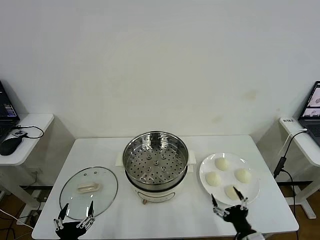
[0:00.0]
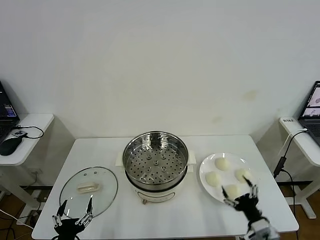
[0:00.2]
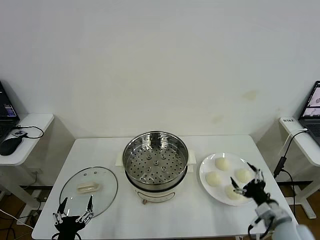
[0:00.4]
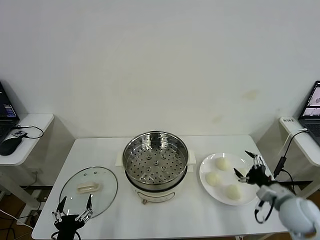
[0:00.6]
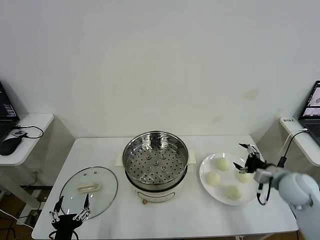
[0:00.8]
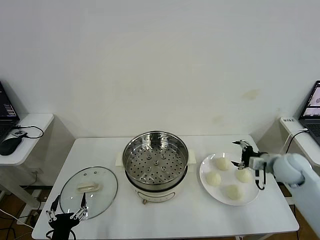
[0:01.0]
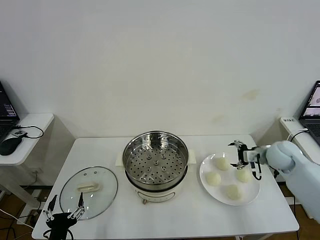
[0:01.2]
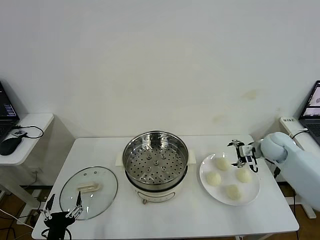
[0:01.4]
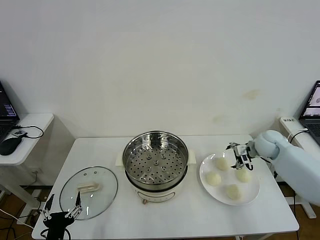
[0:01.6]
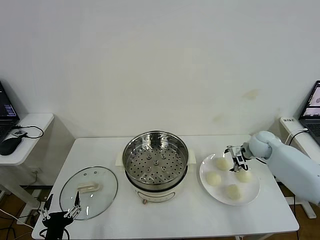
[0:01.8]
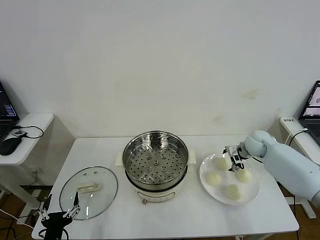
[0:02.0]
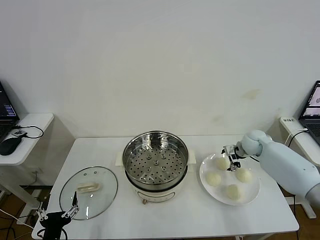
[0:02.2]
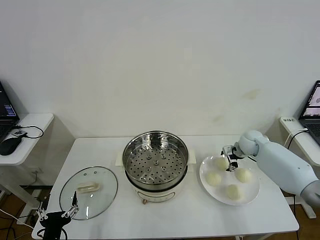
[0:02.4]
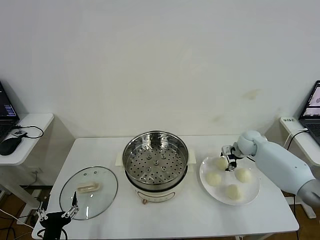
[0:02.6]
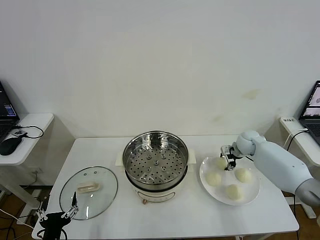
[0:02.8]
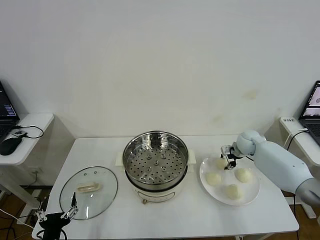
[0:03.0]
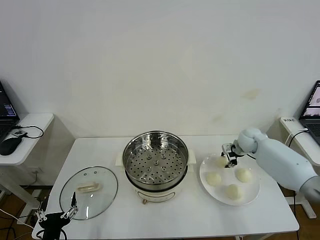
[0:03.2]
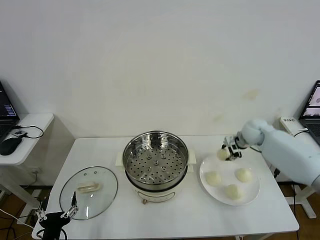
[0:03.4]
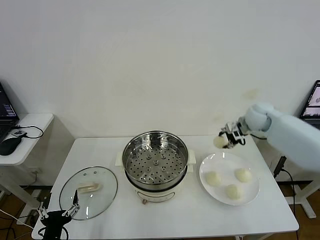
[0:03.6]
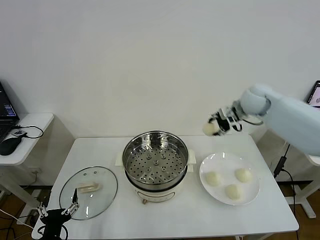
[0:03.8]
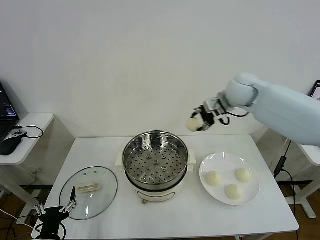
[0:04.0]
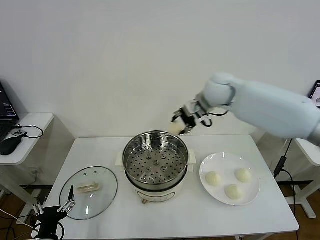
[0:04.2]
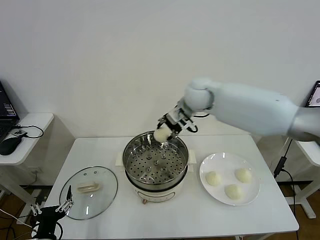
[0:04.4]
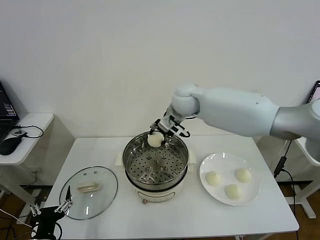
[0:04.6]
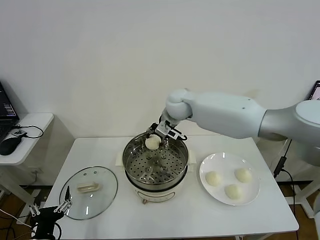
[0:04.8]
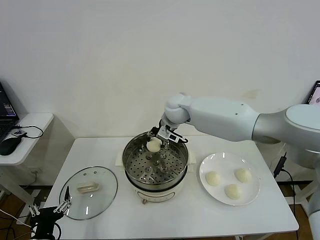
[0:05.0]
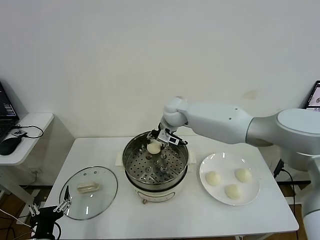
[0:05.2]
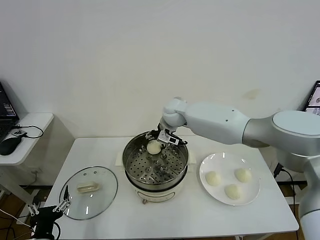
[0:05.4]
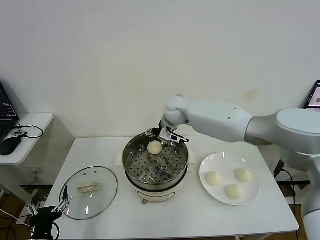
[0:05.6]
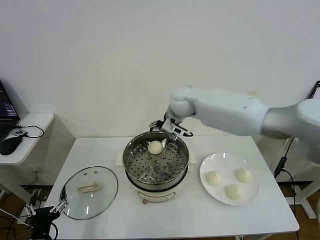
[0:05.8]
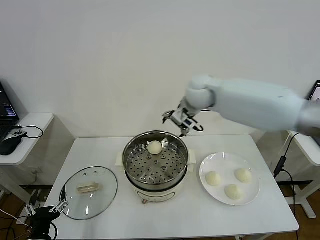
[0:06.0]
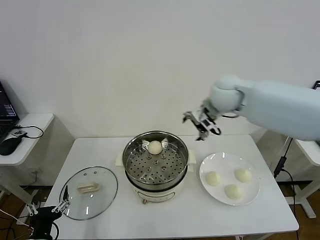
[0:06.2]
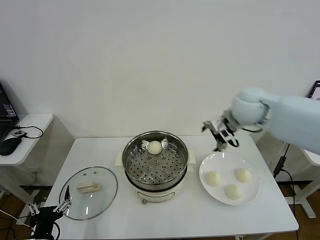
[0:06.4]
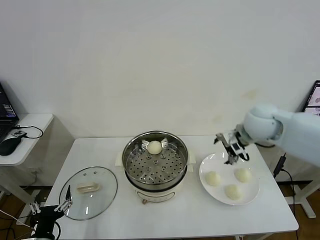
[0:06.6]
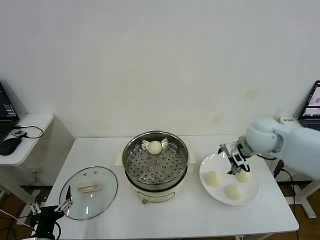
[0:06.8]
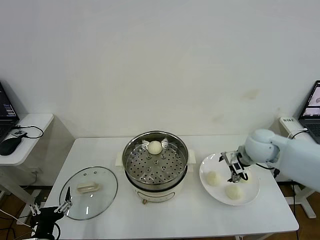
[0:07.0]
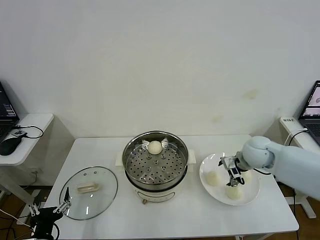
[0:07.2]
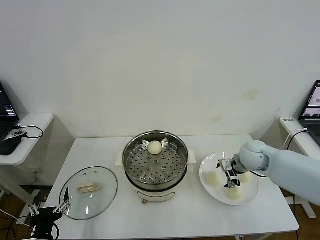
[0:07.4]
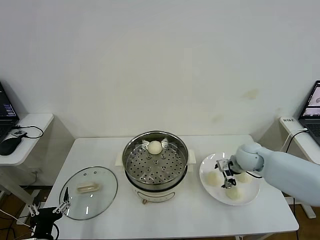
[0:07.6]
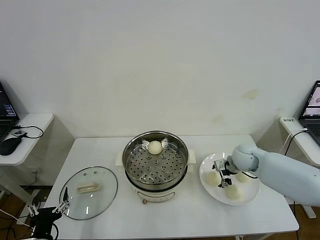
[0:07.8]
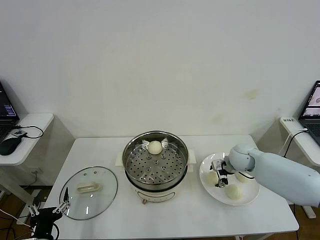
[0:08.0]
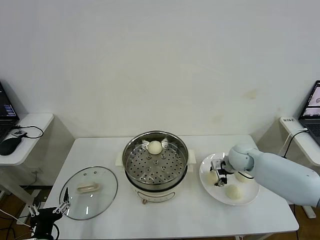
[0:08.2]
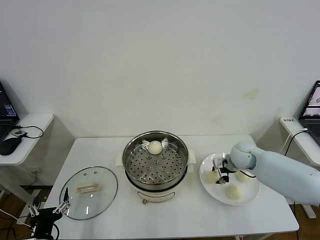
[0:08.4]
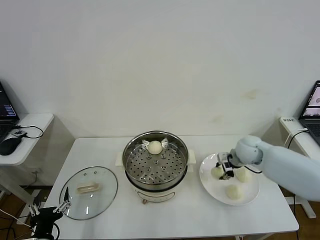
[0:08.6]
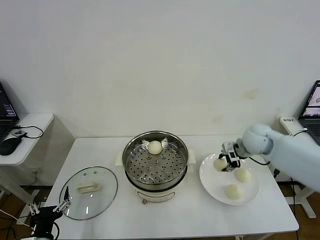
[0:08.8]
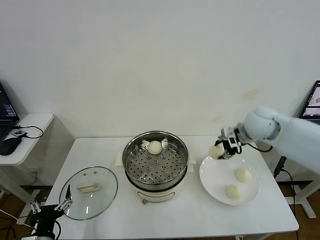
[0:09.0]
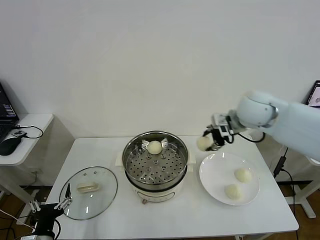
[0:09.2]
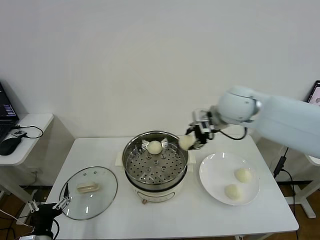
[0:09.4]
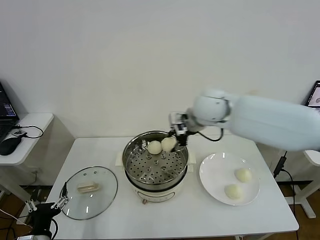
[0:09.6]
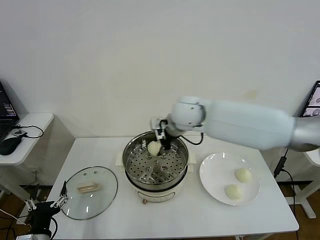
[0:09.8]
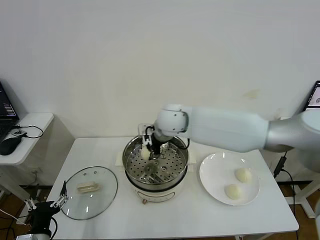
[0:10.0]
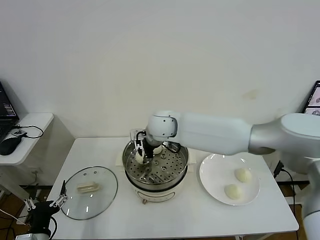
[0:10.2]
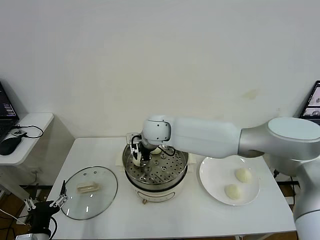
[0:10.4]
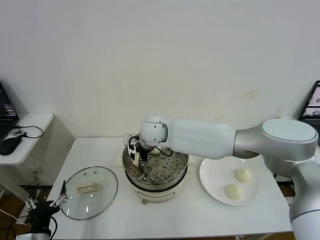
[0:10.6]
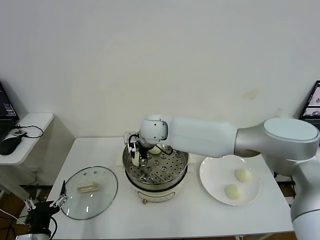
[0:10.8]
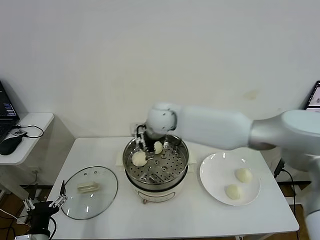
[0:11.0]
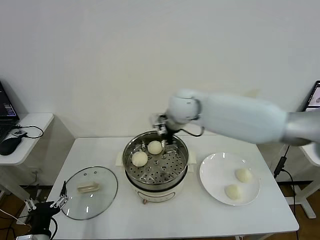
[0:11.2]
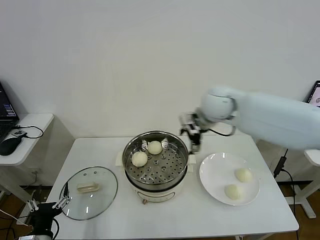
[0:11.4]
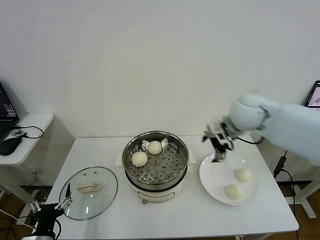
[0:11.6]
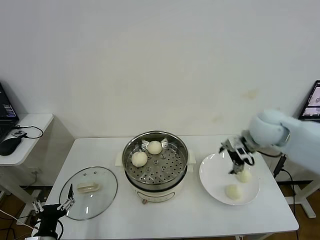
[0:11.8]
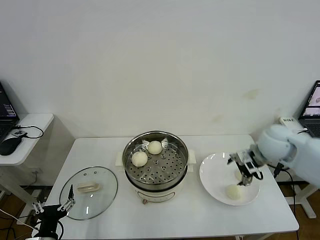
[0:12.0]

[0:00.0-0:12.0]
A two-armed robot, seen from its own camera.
Step, 0:00.0 to 0:02.8: Grasp the baozi in the plate with right gripper.
Step, 0:03.2 to 0:05.6: Place the baozi on the steamer with right gripper.
Step, 0:05.8 to 0:08.4: Grasp the baozi in the plate with right gripper.
Step, 0:08.6 to 0:10.6: Place the baozi on the steamer with right gripper.
0:01.6 to 0:03.0: The right gripper moves roughly 5 cm, and closes.
0:03.0 to 0:04.4: The right gripper travels to the left and upward by about 35 cm.
0:04.4 to 0:06.0: The right gripper heads to the right, covering roughly 5 cm, reaches approximately 10 cm downward, then returns, and opens.
0:06.0 to 0:07.6: The right gripper is displaced downward and to the right by roughly 25 cm.
0:07.6 to 0:09.0: The right gripper is displaced upward by approximately 20 cm, and closes up.
0:09.0 to 0:10.4: The right gripper shifts approximately 30 cm to the left.
0:10.4 to 0:12.0: The right gripper is displaced to the right by about 35 cm, and opens.

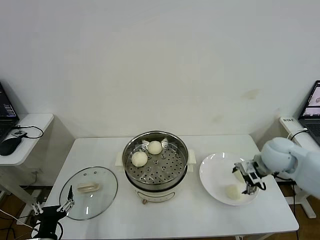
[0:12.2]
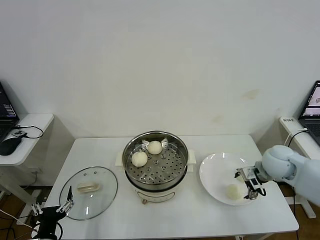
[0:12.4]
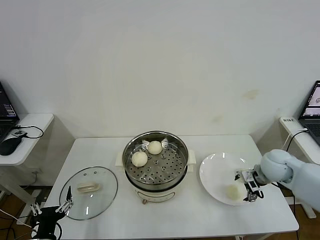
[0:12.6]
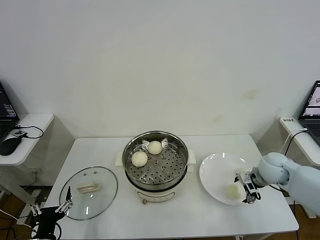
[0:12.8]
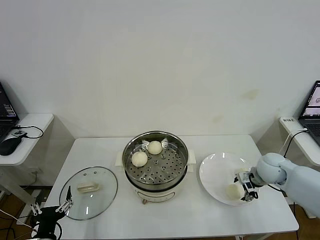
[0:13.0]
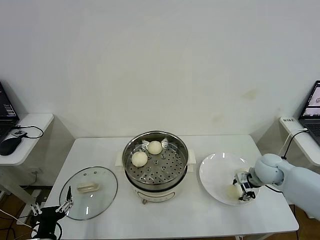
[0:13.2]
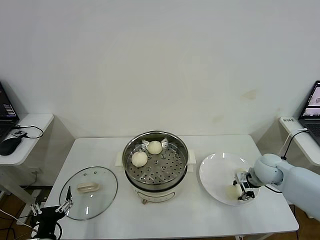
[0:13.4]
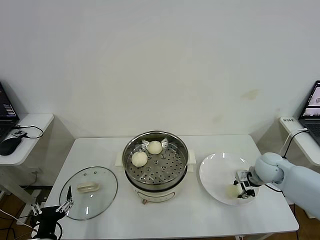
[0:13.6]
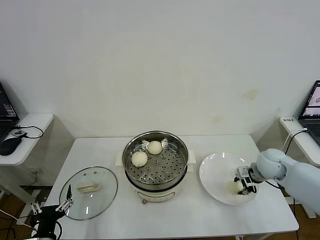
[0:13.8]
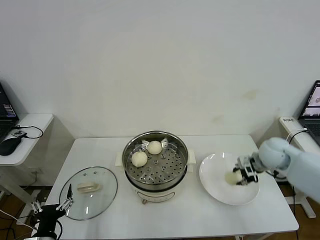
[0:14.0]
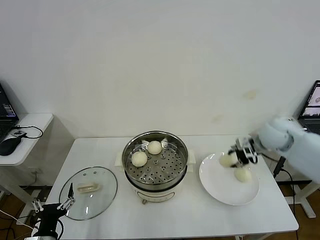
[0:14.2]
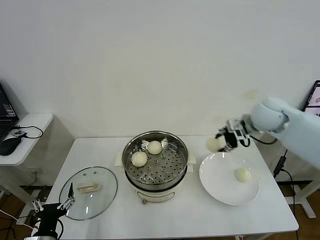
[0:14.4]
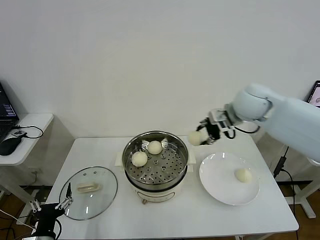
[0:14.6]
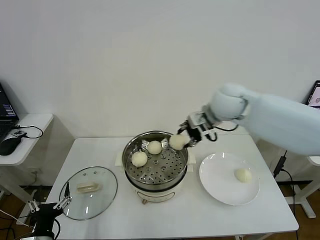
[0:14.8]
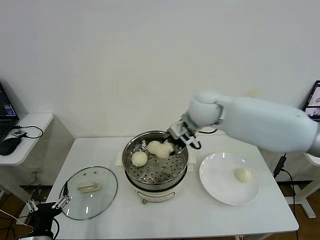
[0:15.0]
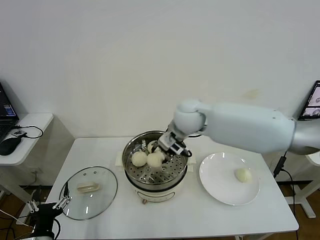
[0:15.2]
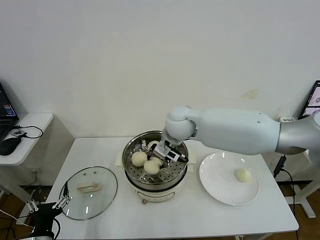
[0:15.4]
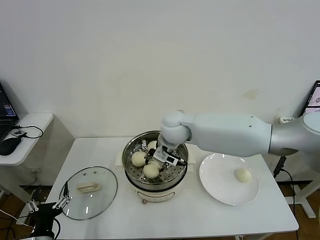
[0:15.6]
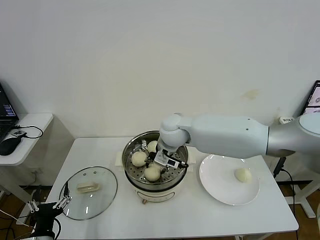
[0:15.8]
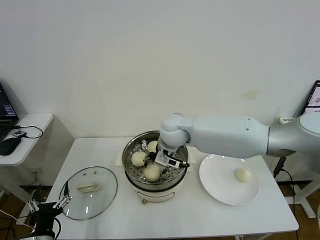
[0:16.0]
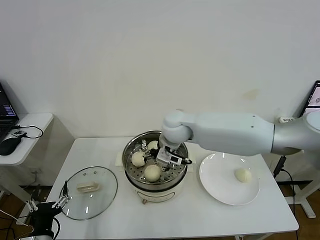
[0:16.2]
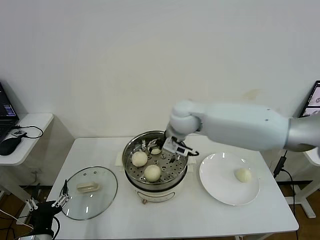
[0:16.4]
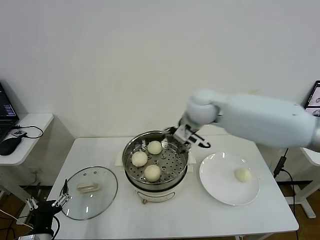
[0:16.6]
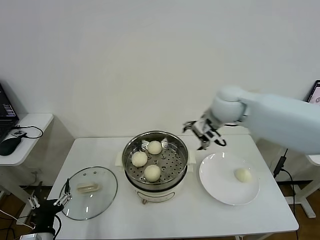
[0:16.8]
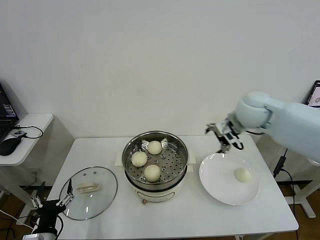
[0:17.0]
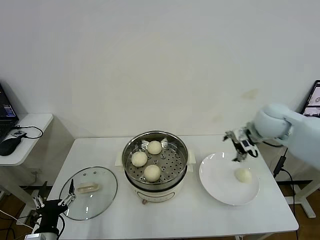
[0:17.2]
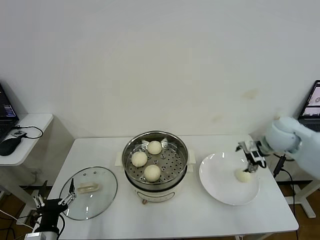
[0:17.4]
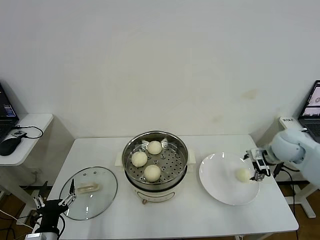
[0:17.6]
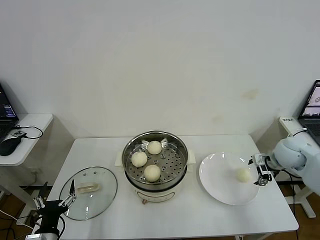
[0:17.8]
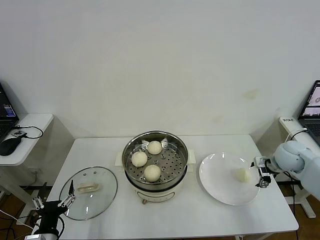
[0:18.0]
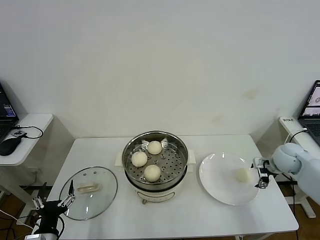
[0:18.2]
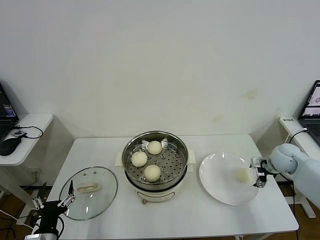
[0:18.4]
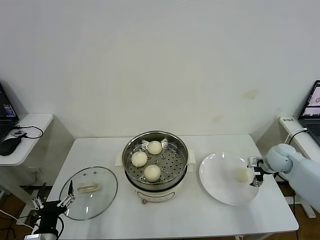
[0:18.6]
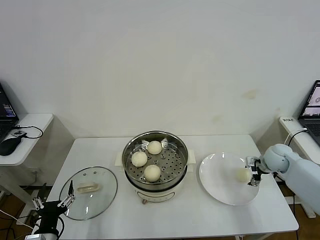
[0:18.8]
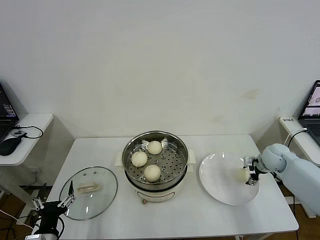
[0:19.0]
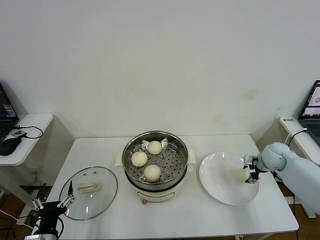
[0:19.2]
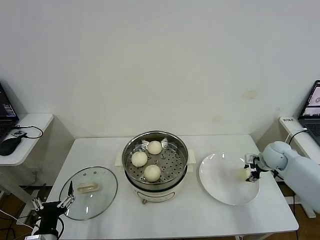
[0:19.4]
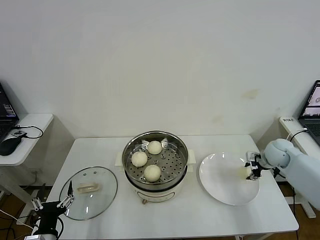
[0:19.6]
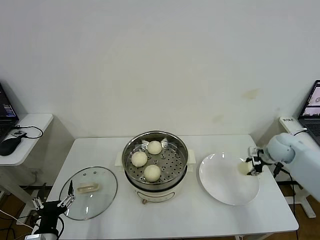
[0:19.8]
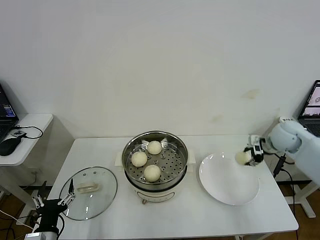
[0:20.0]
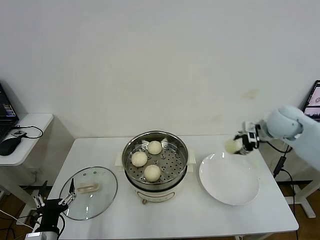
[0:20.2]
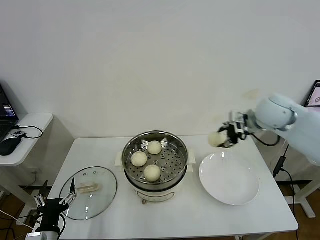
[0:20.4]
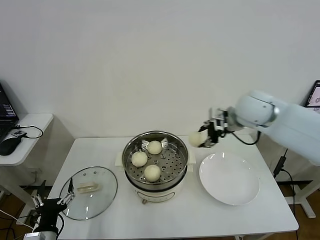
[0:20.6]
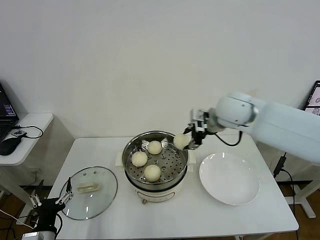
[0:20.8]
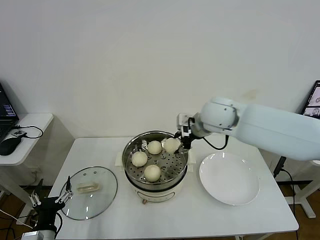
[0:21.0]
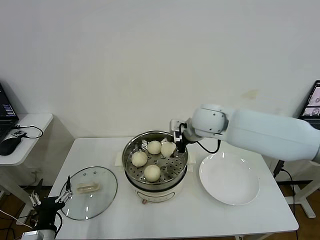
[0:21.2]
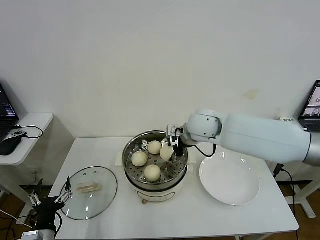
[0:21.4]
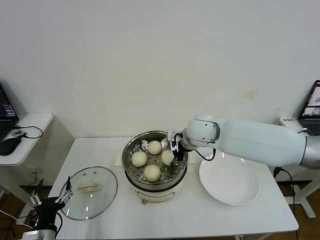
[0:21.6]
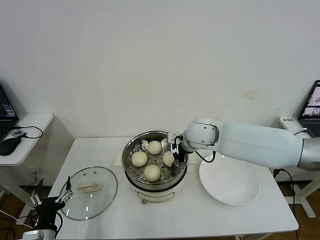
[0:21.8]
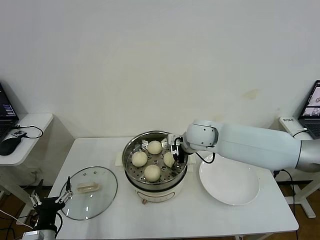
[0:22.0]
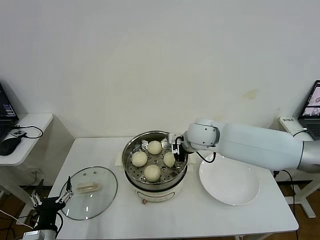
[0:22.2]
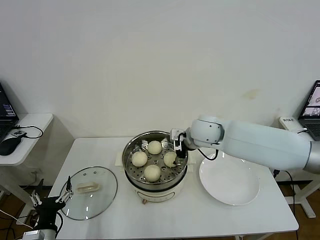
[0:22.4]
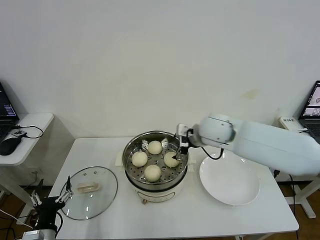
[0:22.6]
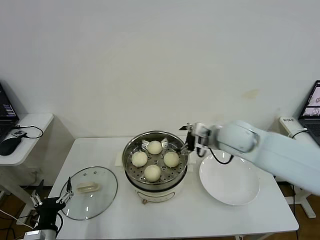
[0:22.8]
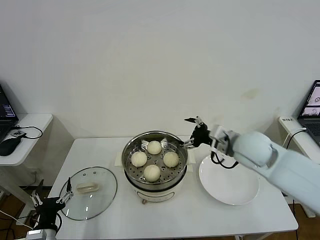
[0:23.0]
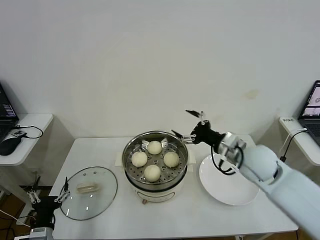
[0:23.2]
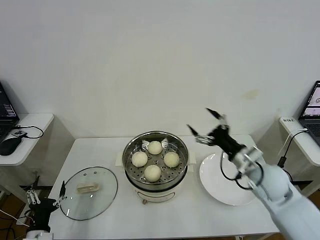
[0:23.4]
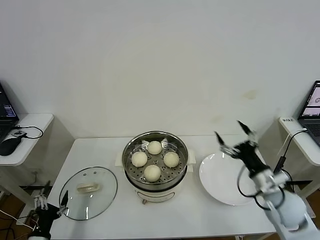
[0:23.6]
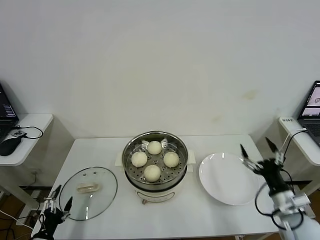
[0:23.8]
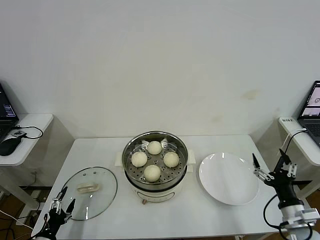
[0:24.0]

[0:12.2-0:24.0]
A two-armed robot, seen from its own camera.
Step, 0:13.6 to 0:16.0: Place the baozi on the steamer with right gripper.
Step, 0:16.2 to 0:19.4: Grasp the baozi in the plate with right gripper.
Step, 0:19.6 to 0:22.2: Place the baozi on the steamer with right gripper.
0:12.2 to 0:13.6: The right gripper is displaced downward by approximately 5 cm, and closes up.
0:13.6 to 0:15.2: The right gripper moves to the left and upward, about 35 cm.
0:15.2 to 0:16.6: The right gripper goes approximately 5 cm to the right, and opens its fingers.
0:16.6 to 0:18.2: The right gripper travels to the right and downward by about 35 cm.
0:18.2 to 0:19.6: The right gripper closes.
0:19.6 to 0:21.0: The right gripper shifts approximately 35 cm to the left and upward.
0:21.0 to 0:22.6: The right gripper opens.
0:22.6 to 0:24.0: The left gripper heads to the left and downward, covering roughly 10 cm, while the right gripper is displaced backward, to the right and downward by some 40 cm.
